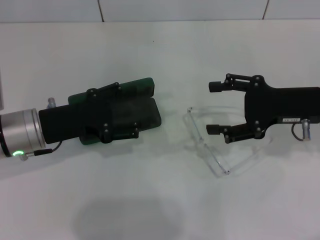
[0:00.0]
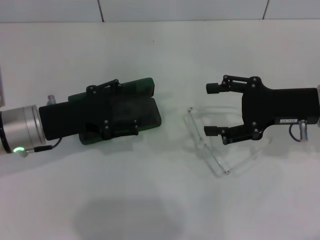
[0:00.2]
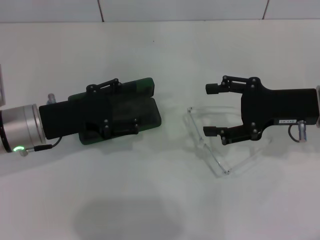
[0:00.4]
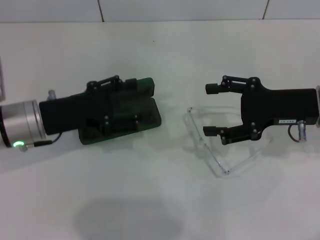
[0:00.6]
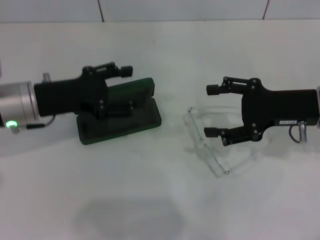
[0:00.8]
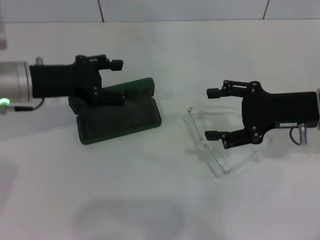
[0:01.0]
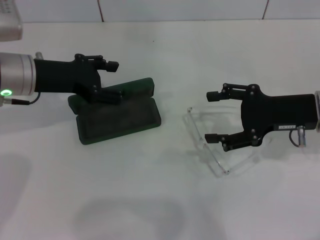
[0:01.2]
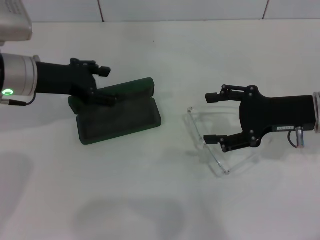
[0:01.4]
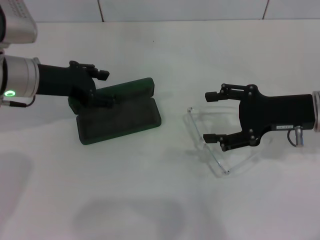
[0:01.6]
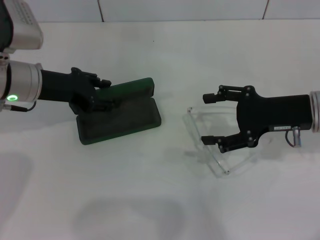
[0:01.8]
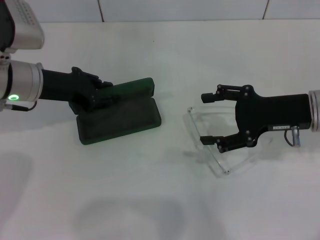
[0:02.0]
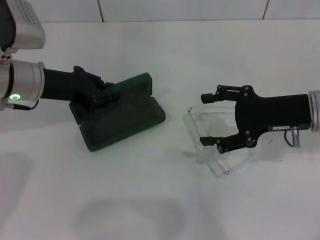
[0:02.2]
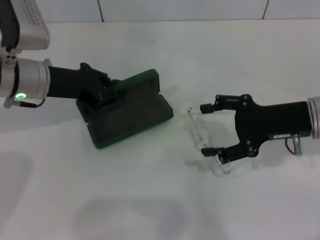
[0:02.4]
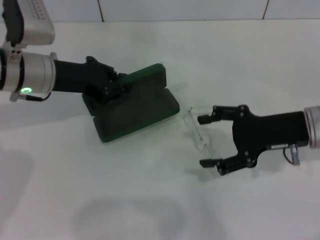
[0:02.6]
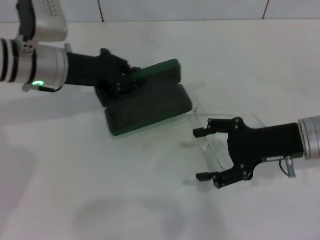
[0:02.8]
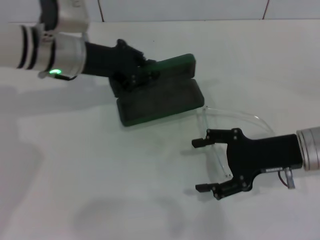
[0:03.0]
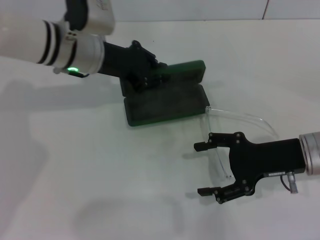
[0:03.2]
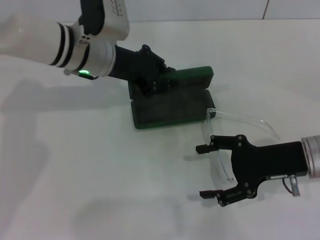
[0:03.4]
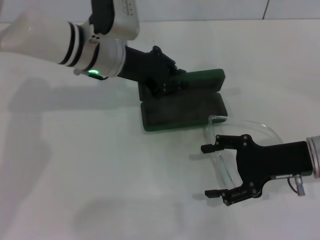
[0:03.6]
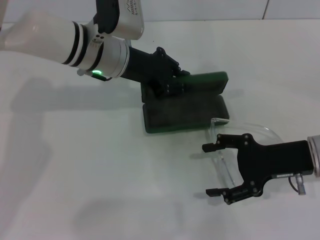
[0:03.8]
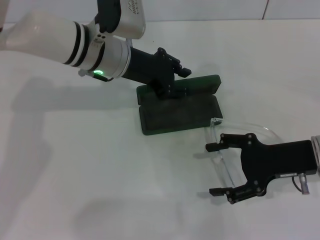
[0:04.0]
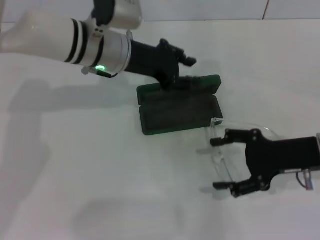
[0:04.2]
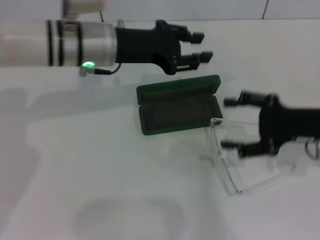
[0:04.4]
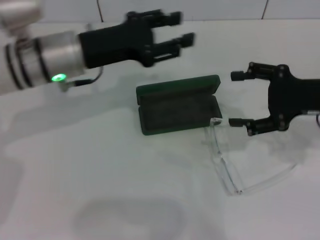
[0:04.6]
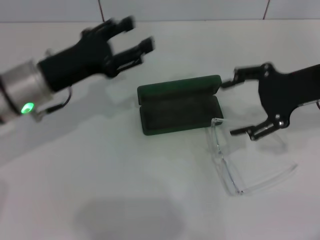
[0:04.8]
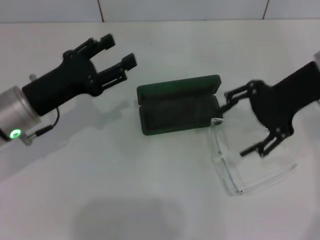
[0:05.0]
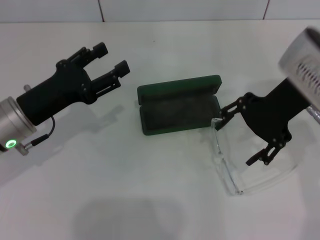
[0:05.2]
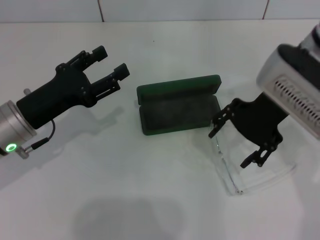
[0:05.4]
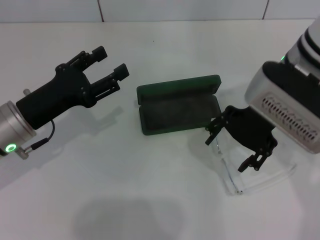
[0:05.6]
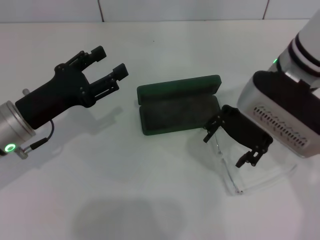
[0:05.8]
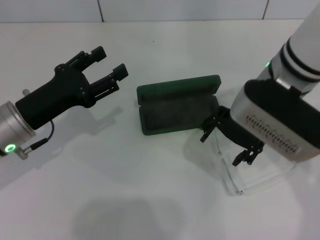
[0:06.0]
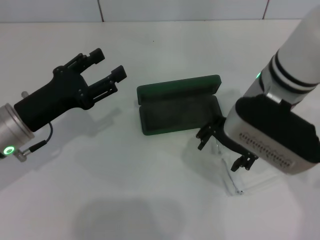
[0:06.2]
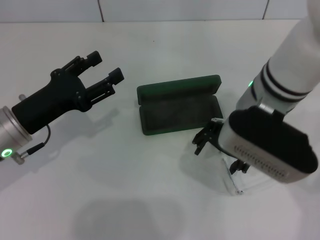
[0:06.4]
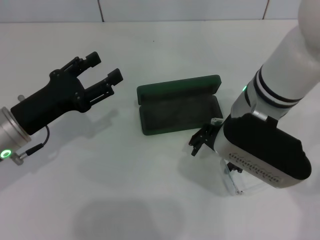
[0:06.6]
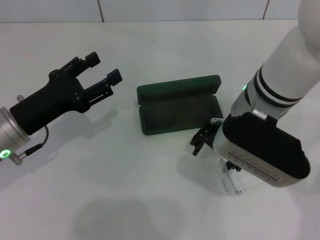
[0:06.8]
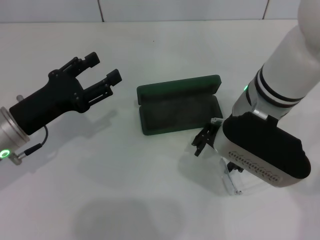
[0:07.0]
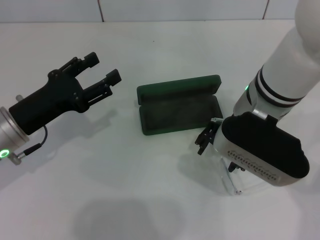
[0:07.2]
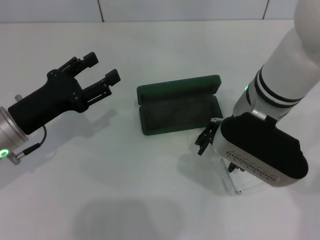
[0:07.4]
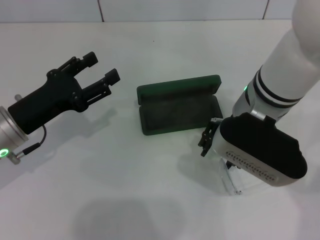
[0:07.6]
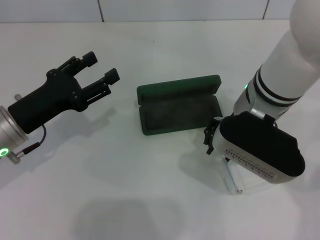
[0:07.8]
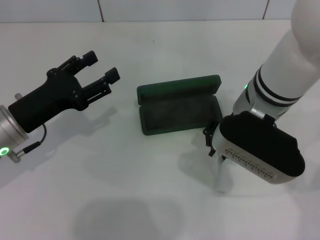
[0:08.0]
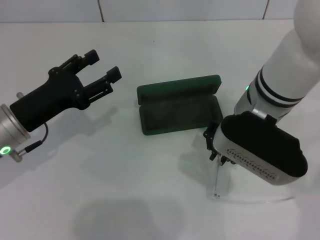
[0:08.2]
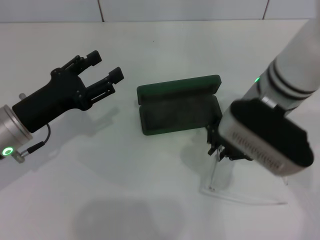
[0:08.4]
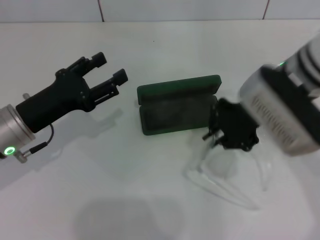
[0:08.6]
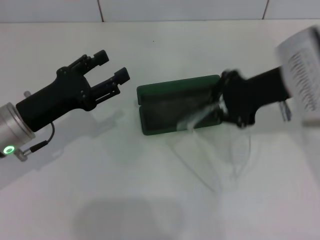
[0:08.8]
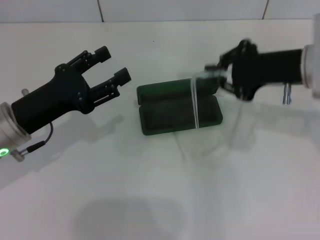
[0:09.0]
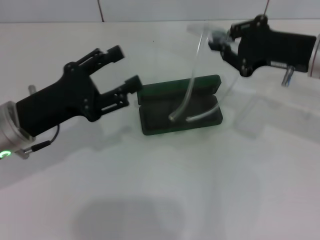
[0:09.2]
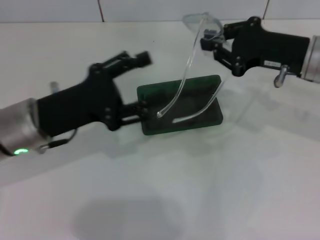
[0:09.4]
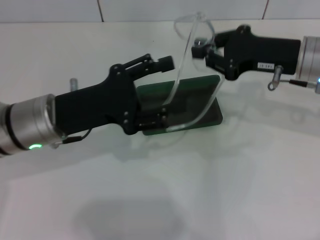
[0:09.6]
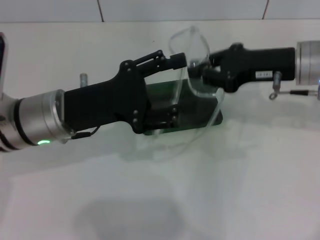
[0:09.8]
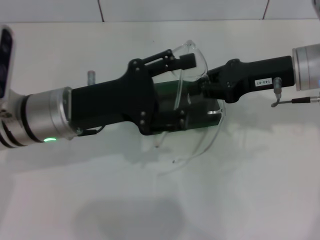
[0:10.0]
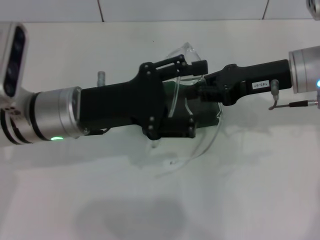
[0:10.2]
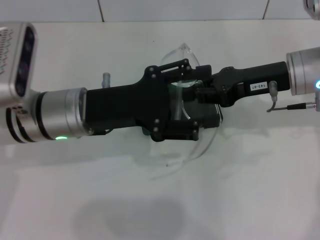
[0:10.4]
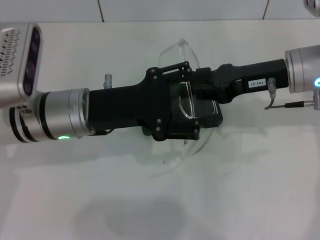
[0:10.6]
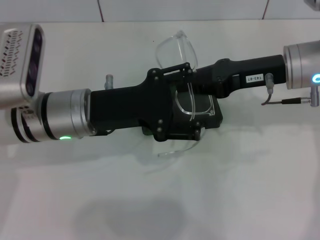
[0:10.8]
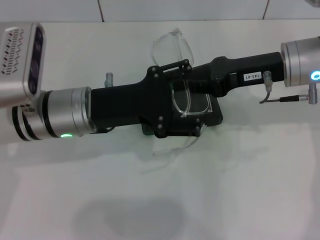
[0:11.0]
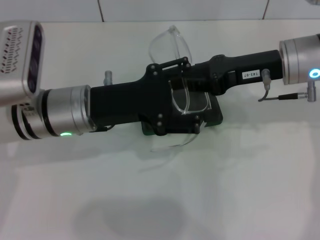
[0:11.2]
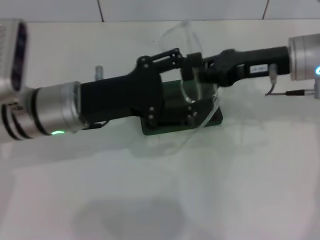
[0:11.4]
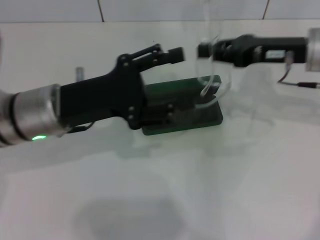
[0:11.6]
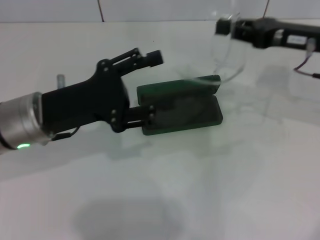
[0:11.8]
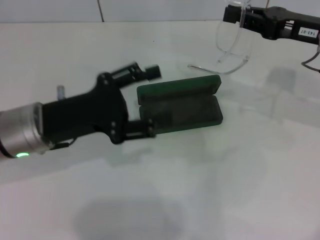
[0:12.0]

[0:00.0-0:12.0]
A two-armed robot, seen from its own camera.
Step, 0:00.0 to 0:02.0: Grab the glasses case with your left hand.
Step, 0:02.2 to 0:04.0: Place the glasses case in the center of the table with your left hand.
Step, 0:04.2 to 0:08.0: Grab the eyeglass frame with your right hand.
0:00.0 to 0:01.6: The left gripper travels forward by some 10 cm.
0:01.6 to 0:03.0: The left gripper travels to the right by about 5 cm, and closes up.
0:04.4 to 0:06.0: The right gripper shifts some 15 cm to the left and upward. Meanwhile the left gripper goes about 15 cm to the left, backward and downward, and opens up.
0:06.0 to 0:07.6: The grippers stay close to where they were, moving slightly.
0:07.6 to 0:09.0: The right gripper goes some 10 cm to the right, and closes its fingers.
0:09.0 to 0:10.4: The left gripper goes roughly 10 cm to the right.
0:10.4 to 0:12.0: The right gripper goes about 5 cm to the right. The left gripper goes roughly 5 cm to the left.

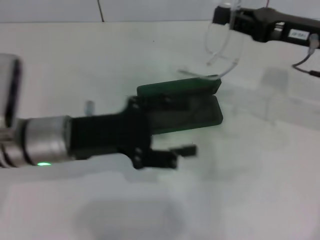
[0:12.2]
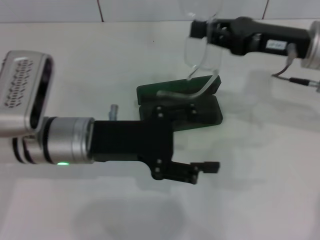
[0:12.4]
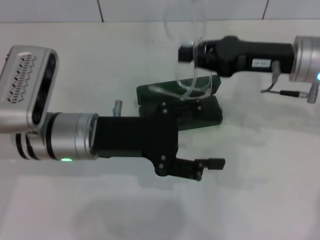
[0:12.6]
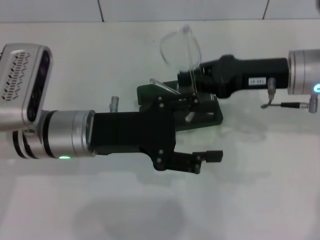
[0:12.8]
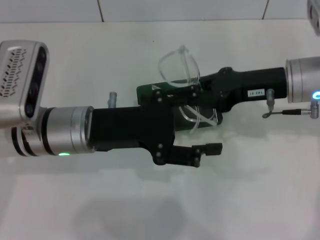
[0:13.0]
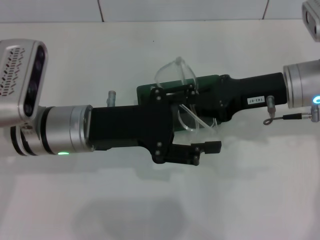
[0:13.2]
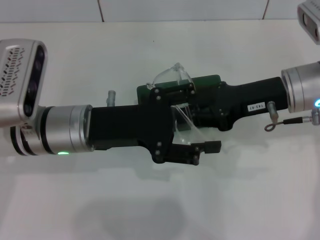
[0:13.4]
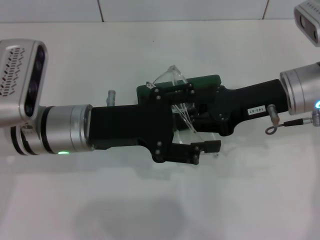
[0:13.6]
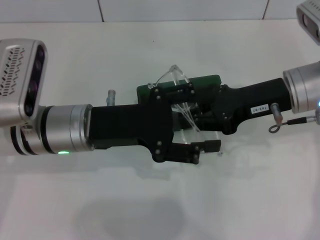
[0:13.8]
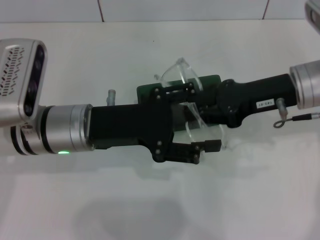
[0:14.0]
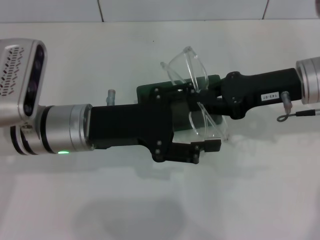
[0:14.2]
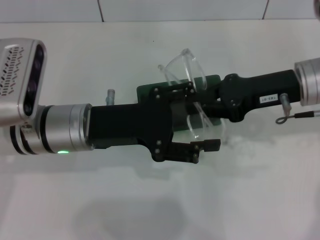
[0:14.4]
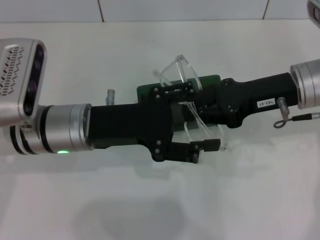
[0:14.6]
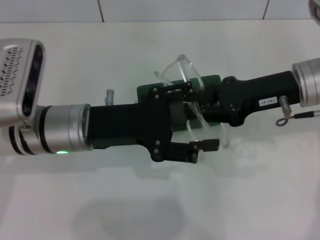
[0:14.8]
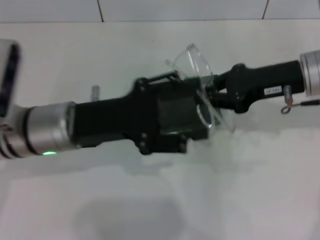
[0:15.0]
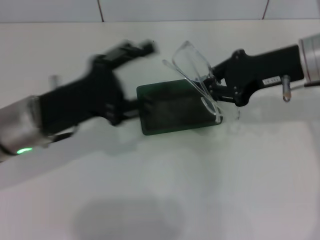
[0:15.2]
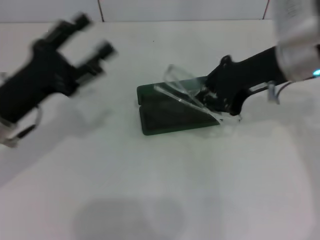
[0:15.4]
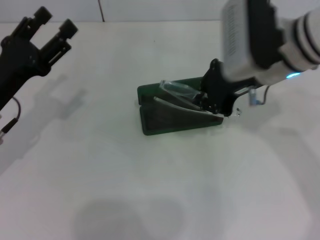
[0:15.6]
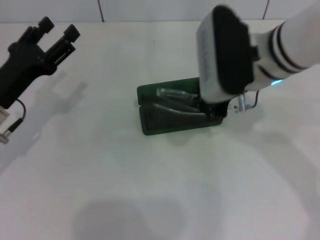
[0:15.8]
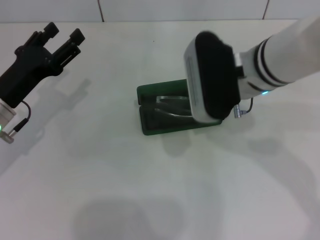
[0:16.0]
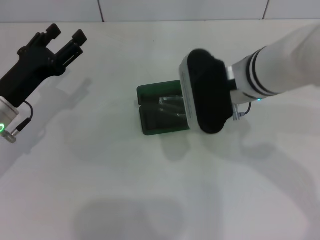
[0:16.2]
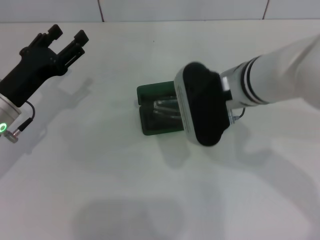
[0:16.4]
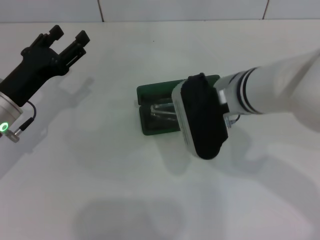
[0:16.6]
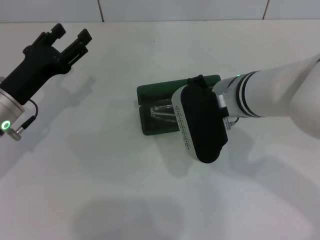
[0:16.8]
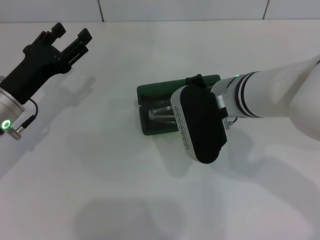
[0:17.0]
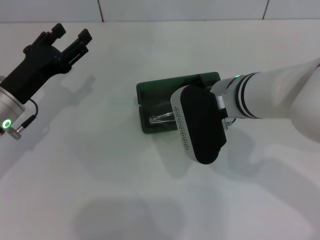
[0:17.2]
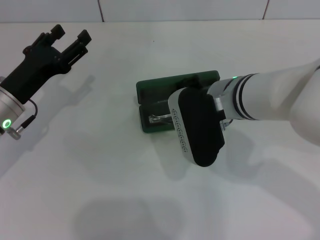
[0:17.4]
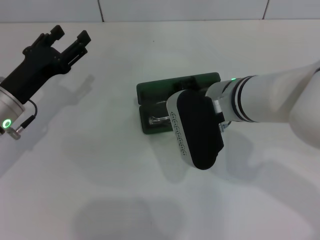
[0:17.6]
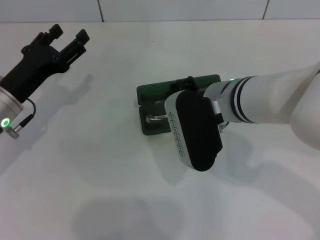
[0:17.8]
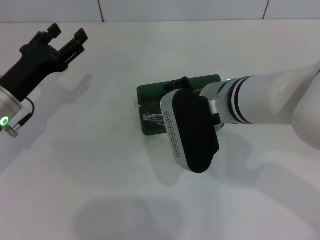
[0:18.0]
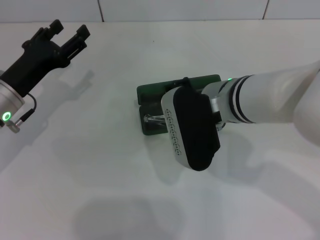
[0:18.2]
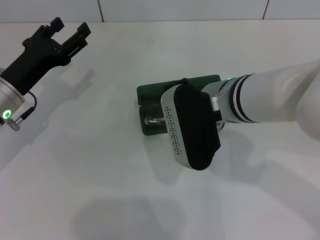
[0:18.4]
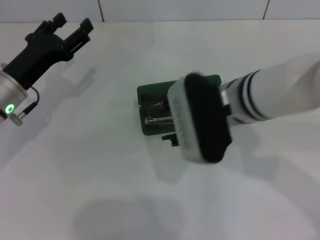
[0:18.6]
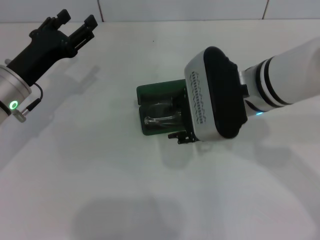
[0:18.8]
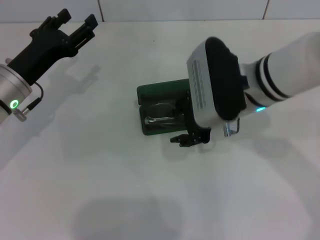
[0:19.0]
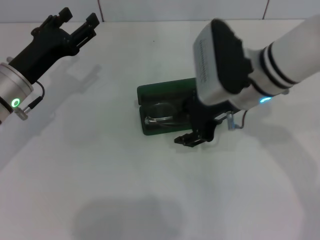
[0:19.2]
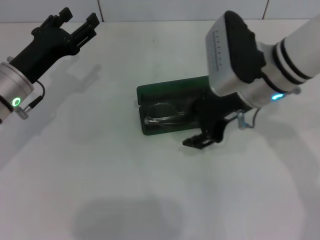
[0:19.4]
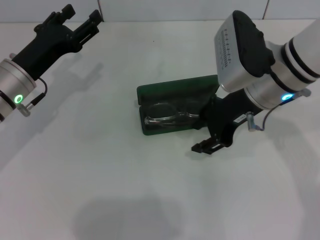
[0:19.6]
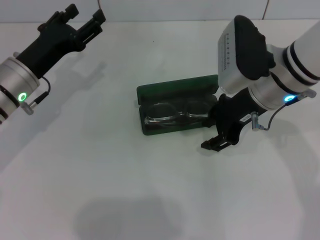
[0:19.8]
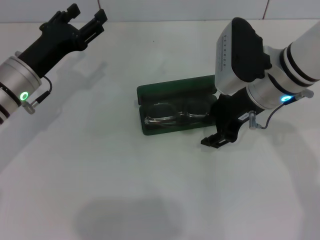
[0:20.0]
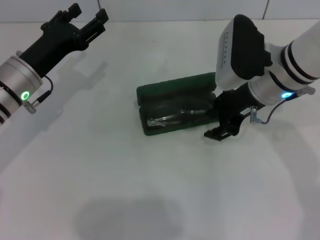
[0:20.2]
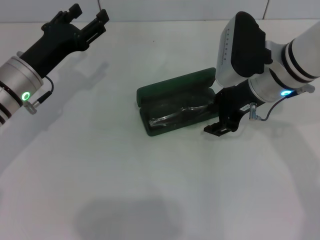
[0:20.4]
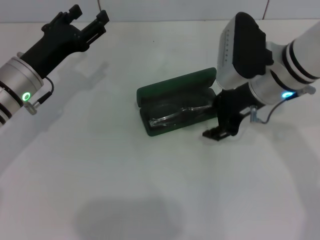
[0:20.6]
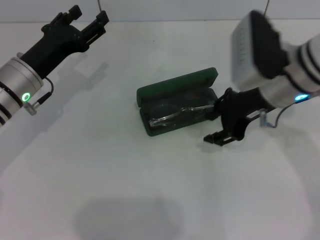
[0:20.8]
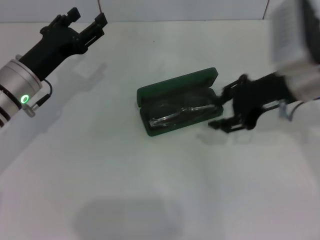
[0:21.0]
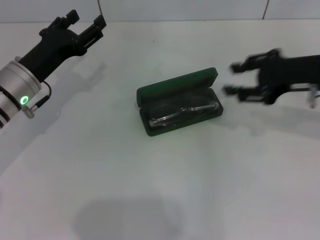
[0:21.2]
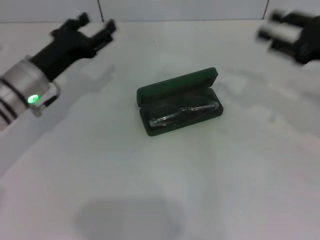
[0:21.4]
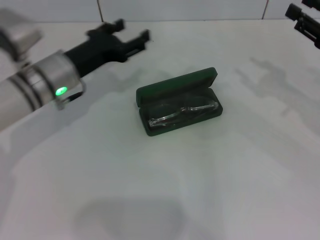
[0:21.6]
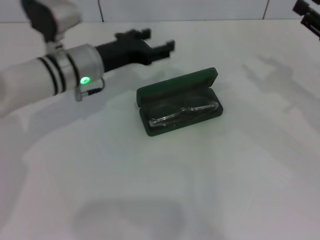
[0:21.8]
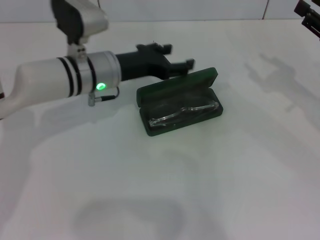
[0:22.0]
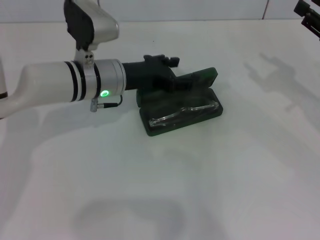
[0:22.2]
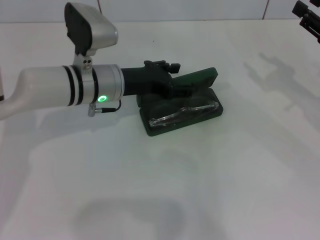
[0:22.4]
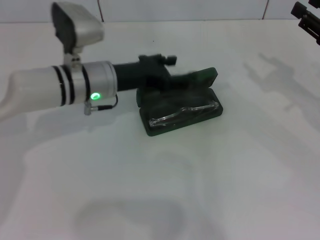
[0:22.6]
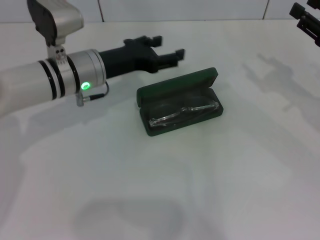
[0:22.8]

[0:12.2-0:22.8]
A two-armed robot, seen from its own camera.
Step, 0:12.2 to 0:14.8: Fold the frame with your left hand.
Step, 0:15.0 to 0:19.0: Put the glasses into the case with your right hand.
0:12.2 to 0:13.8: The right gripper ends up about 5 cm from where it was.
0:15.2 to 0:16.8: The right gripper is displaced to the left and downward by roughly 15 cm. The left gripper moves to the left, about 5 cm.
0:16.8 to 0:18.2: The right gripper opens.
0:18.2 to 0:19.8: The right gripper travels to the right by some 5 cm.
0:19.8 to 0:21.2: The right gripper is displaced to the right by roughly 10 cm.
0:21.2 to 0:22.8: The two grippers go approximately 10 cm to the right.
